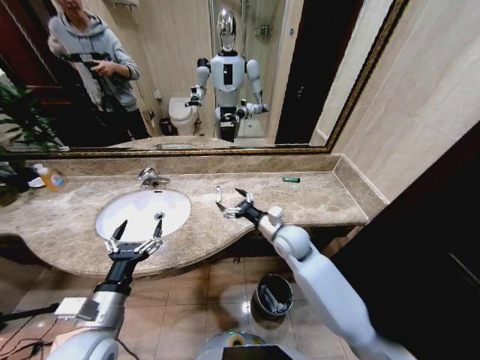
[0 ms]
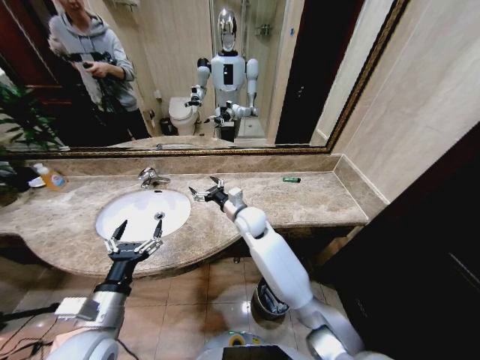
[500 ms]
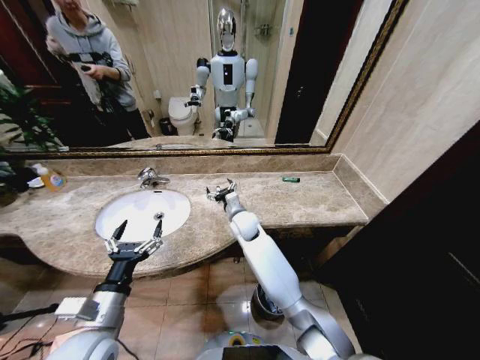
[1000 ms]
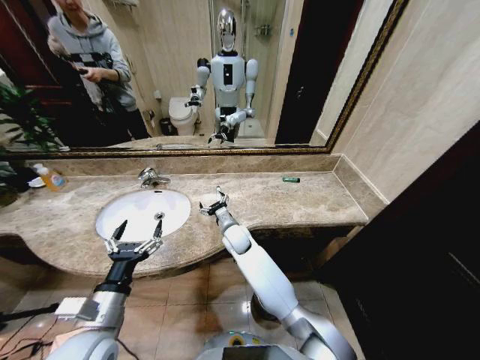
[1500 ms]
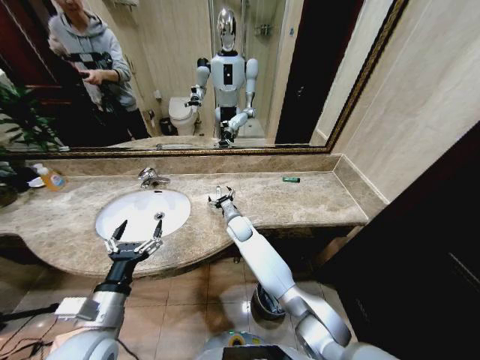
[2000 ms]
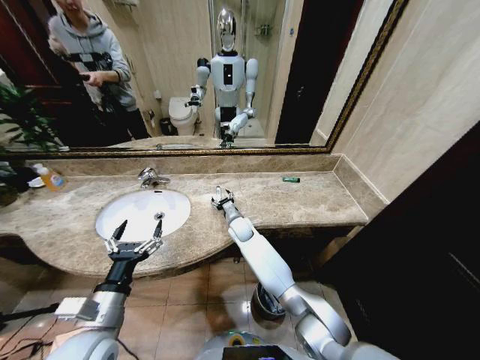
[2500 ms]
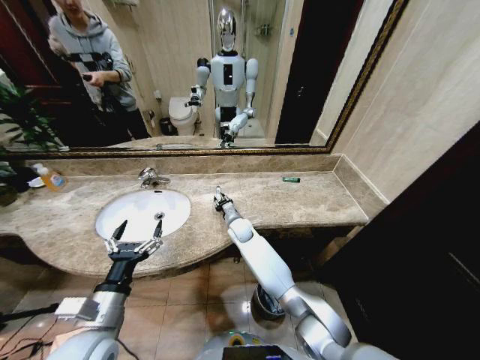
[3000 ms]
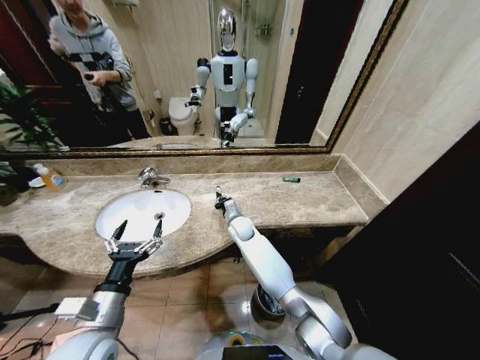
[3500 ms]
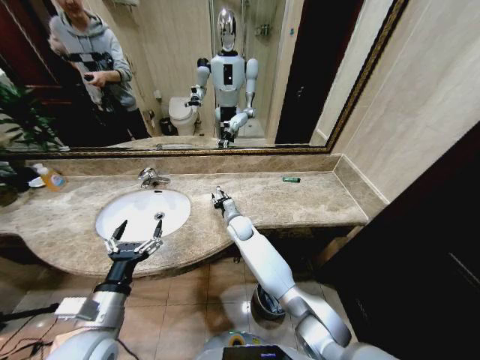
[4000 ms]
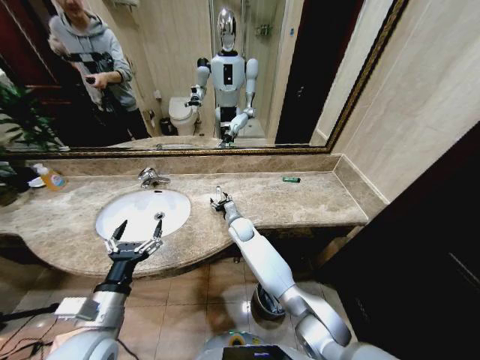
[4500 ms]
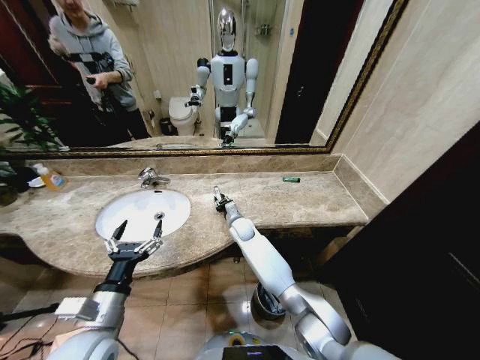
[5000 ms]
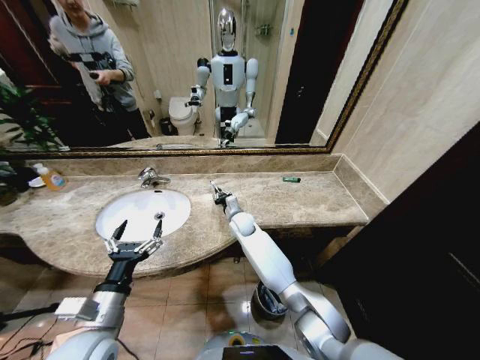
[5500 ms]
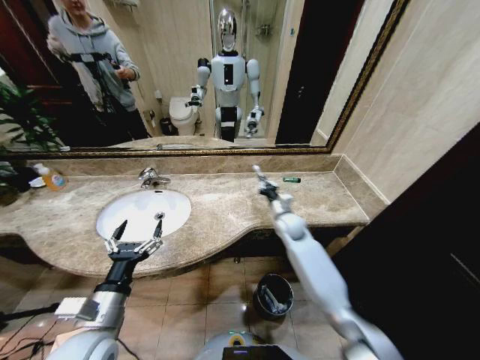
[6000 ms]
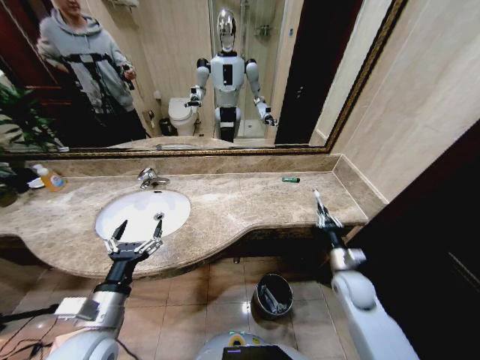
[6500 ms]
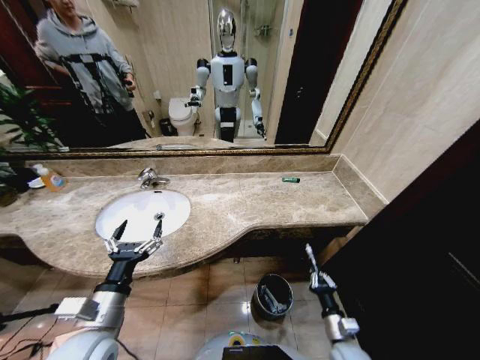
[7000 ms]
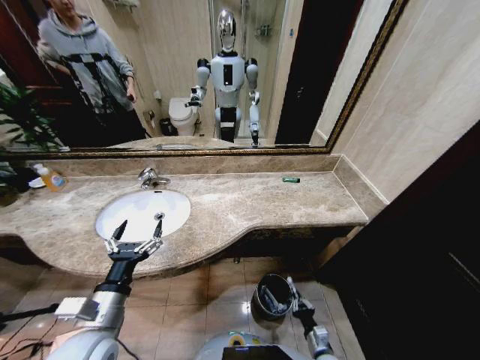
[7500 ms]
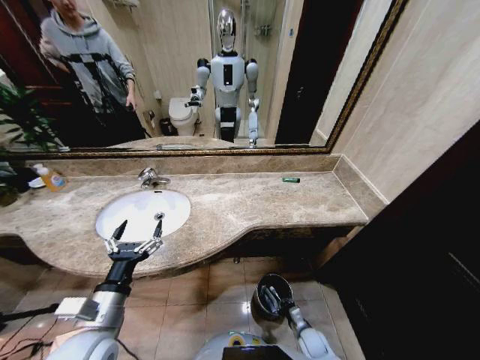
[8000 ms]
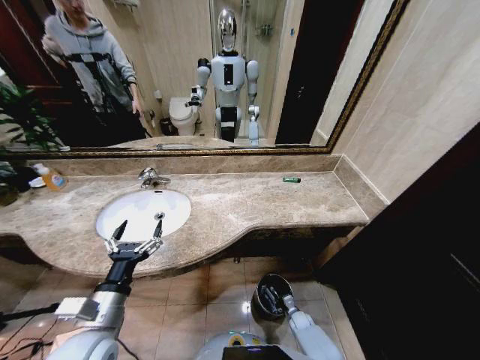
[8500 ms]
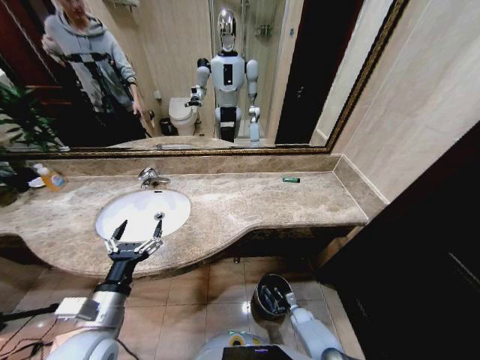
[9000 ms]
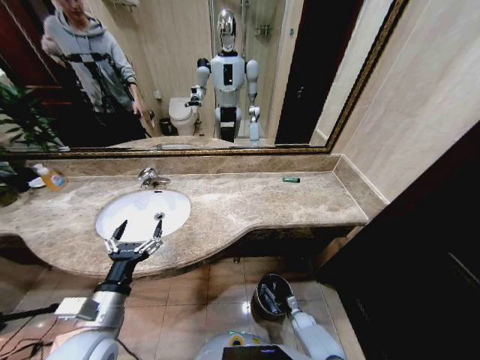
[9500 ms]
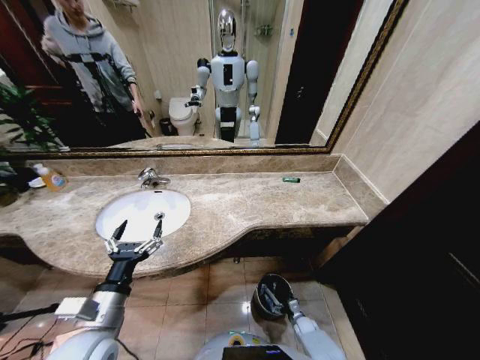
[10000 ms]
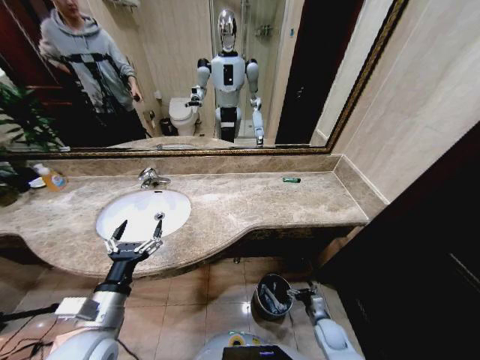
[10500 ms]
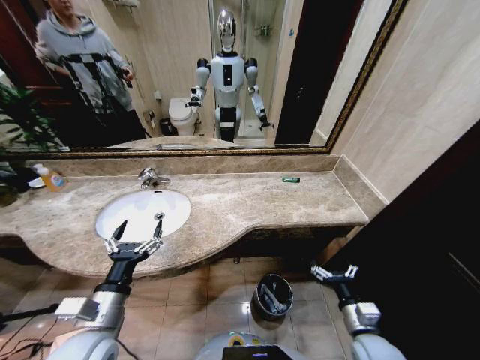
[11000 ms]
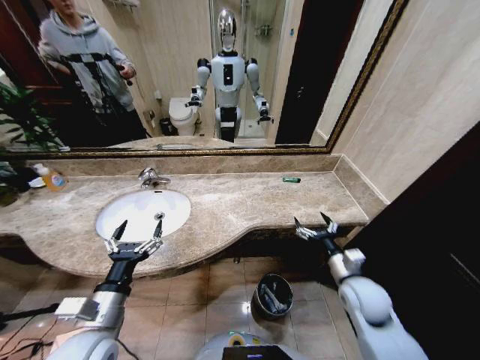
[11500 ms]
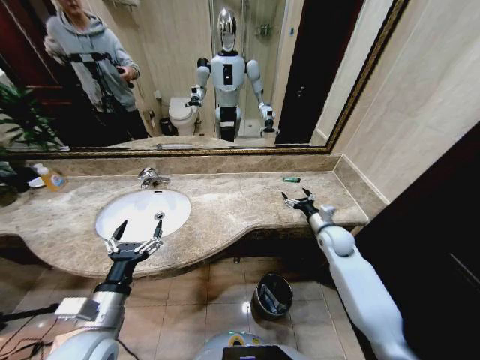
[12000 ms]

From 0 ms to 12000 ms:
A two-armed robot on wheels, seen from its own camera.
Task of the whole recording: Pick up the trash from the sink and place it in the trash bin.
From 0 ms to 2000 ms: The right gripper goes approximately 20 cm to the left, forward and downward.
From 4000 ms to 6000 ms: The right gripper moves to the right, some 15 cm.
From 6000 ms to 8000 ms: The right gripper moves downward and backward, approximately 40 cm.
From 8000 ms to 10000 ms: The right gripper goes roughly 10 cm downward and forward, and opens.
From 10000 ms to 12000 ms: The right gripper shifts approximately 40 cm upward and forward.

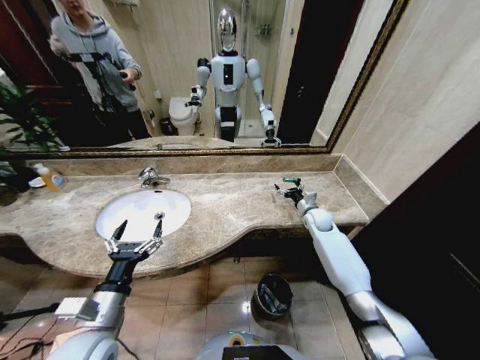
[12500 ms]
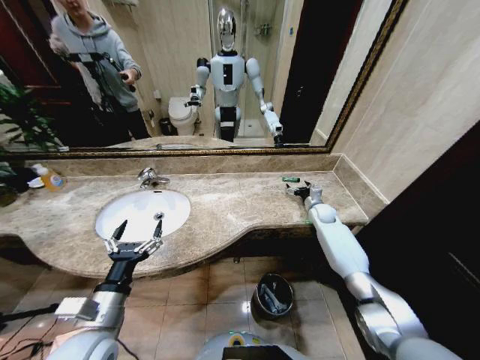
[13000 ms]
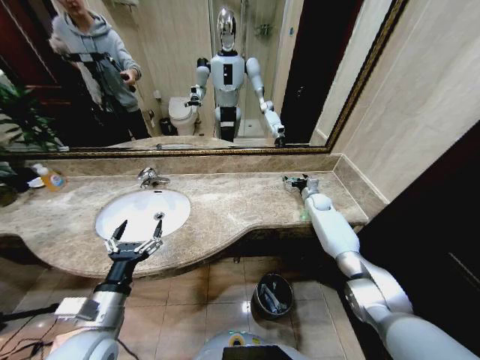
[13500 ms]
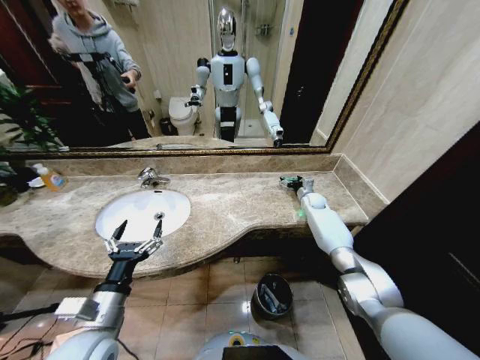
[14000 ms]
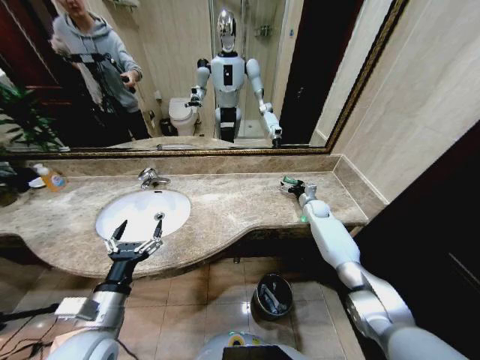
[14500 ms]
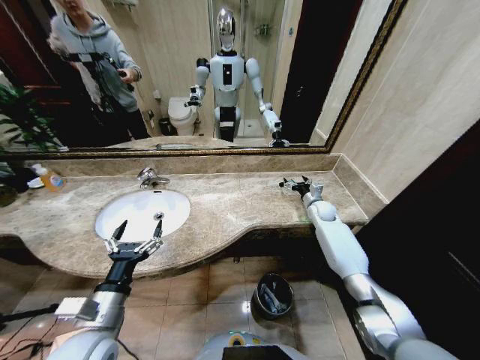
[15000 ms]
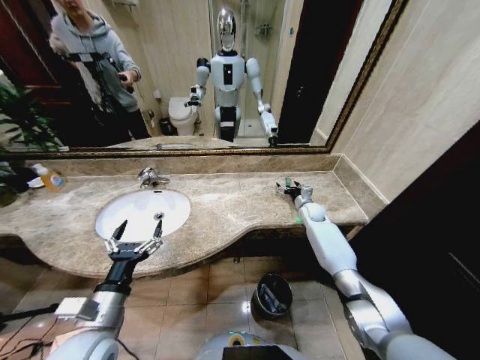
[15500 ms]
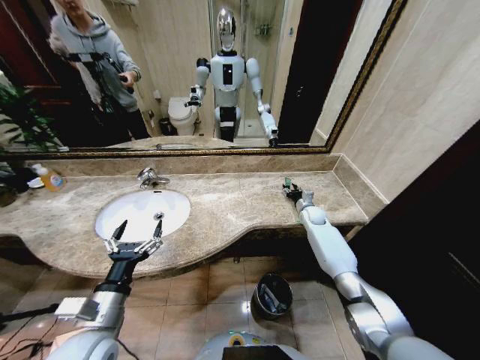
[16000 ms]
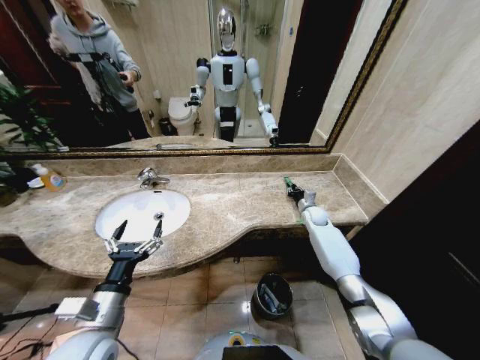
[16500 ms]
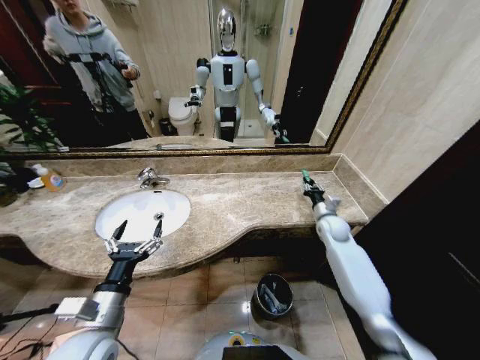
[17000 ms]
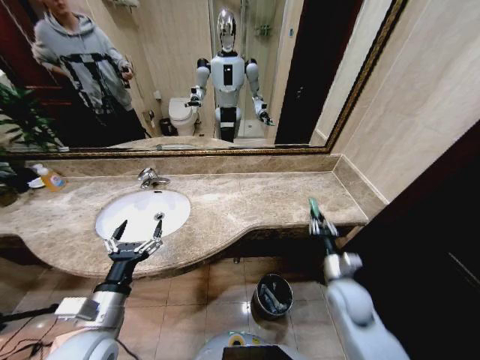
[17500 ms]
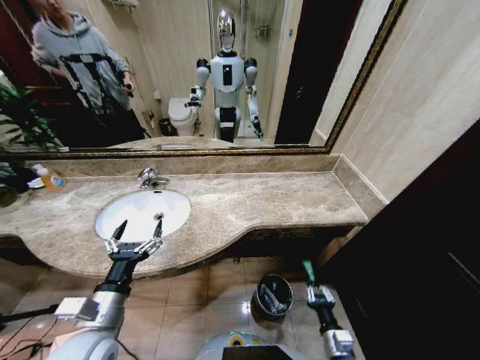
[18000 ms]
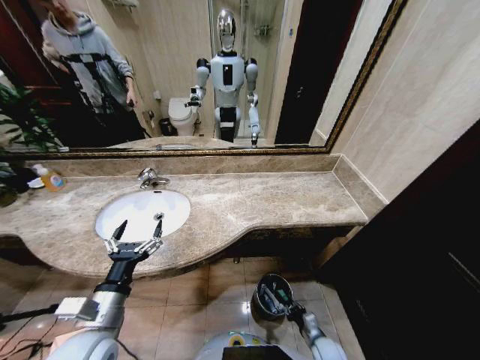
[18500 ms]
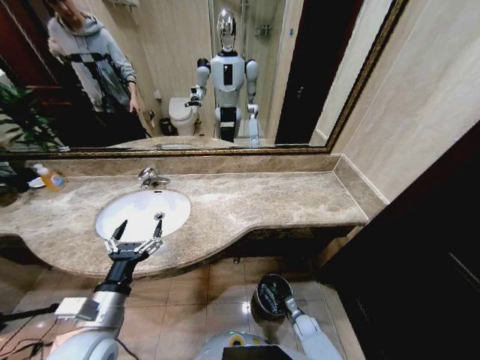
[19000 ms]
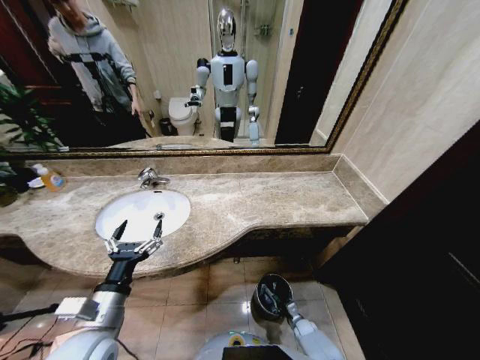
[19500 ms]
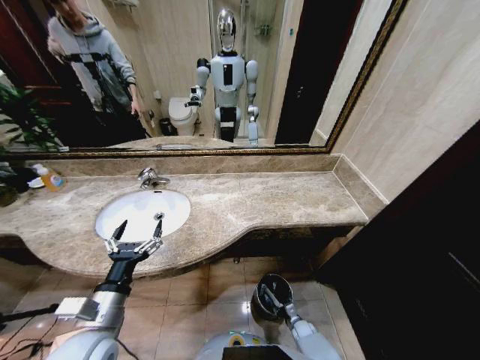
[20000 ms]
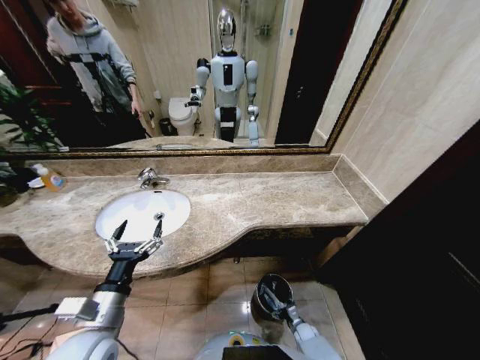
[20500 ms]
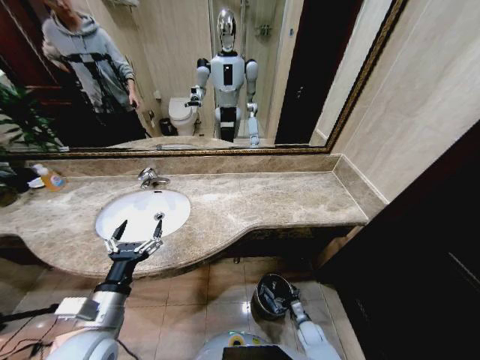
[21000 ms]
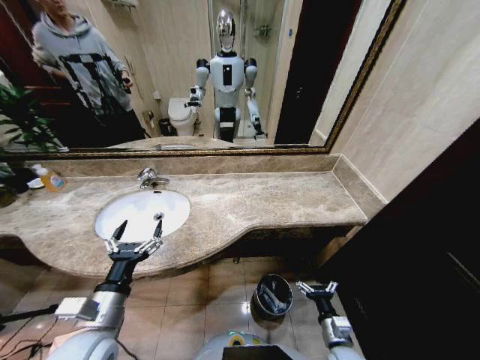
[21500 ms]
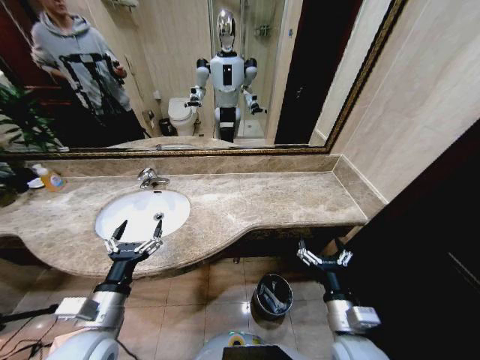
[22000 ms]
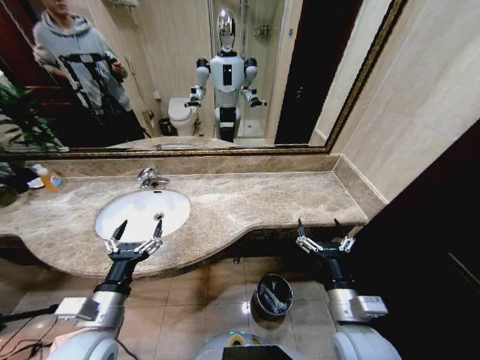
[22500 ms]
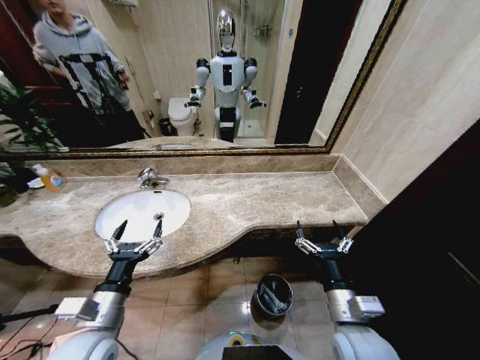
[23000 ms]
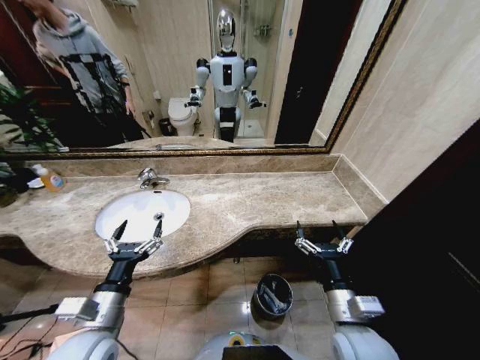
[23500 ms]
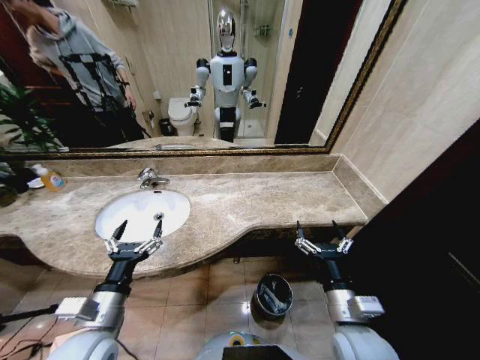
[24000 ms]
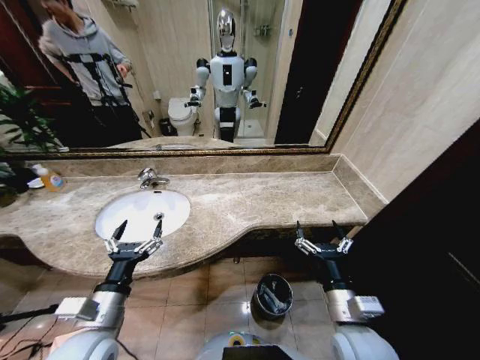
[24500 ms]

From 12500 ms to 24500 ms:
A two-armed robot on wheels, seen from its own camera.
Task of the whole recording: Pick up the trash from the sink and place it in the trash bin.
From 12500 ms to 14500 ms: The right gripper goes some 5 cm forward.
From 14500 ms to 16500 ms: The right gripper closes.
From 16500 ms to 18500 ms: The right gripper heads backward and downward, covering roughly 50 cm.
From 18500 ms to 20500 ms: The right gripper is displaced downward and forward by approximately 15 cm, and opens.
From 20500 ms to 22500 ms: The right gripper moves upward, approximately 50 cm.
From 22500 ms to 24500 ms: The two grippers keep their place.
